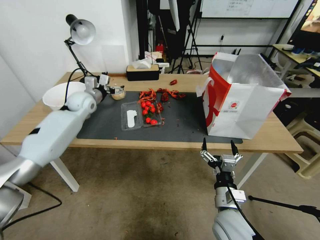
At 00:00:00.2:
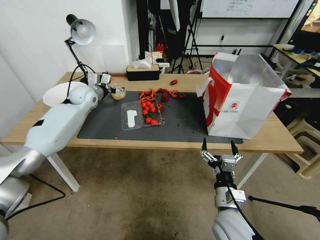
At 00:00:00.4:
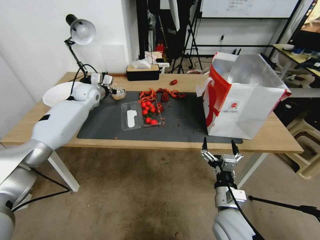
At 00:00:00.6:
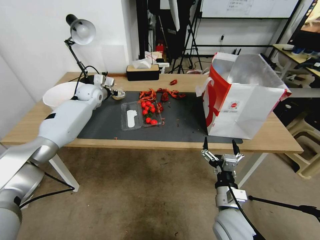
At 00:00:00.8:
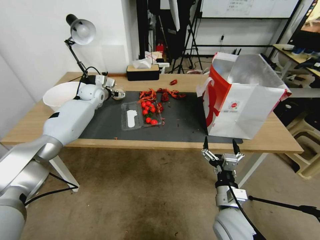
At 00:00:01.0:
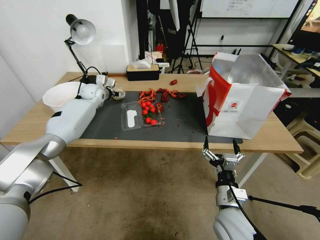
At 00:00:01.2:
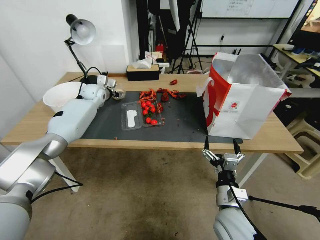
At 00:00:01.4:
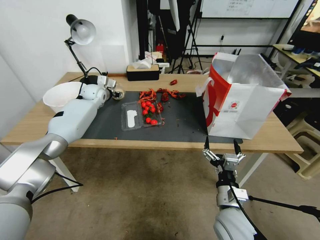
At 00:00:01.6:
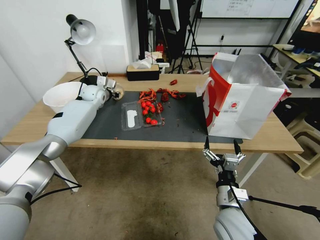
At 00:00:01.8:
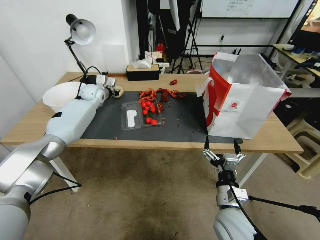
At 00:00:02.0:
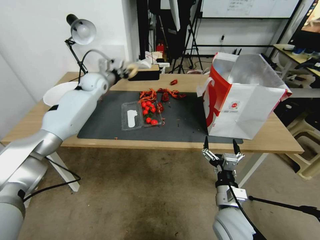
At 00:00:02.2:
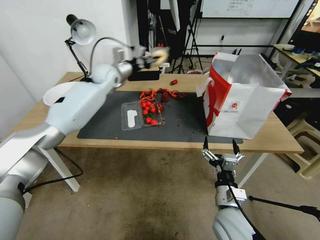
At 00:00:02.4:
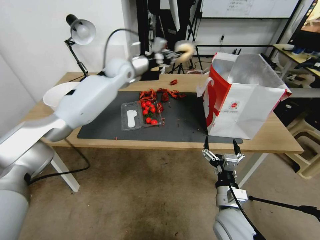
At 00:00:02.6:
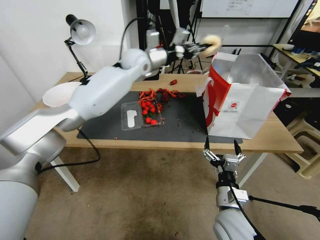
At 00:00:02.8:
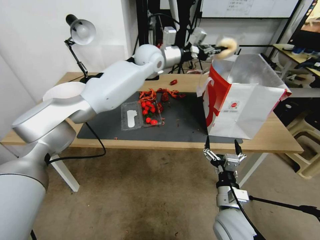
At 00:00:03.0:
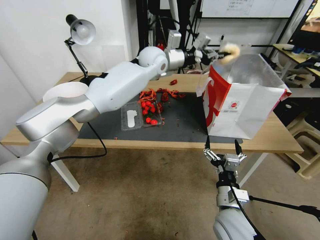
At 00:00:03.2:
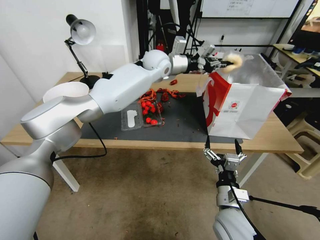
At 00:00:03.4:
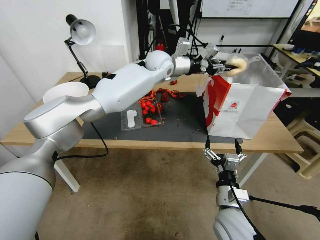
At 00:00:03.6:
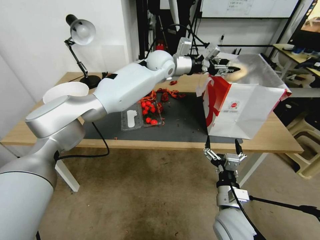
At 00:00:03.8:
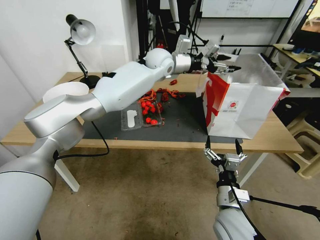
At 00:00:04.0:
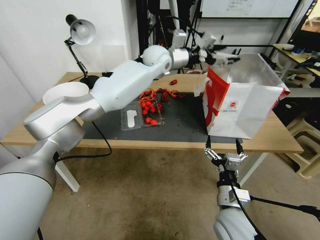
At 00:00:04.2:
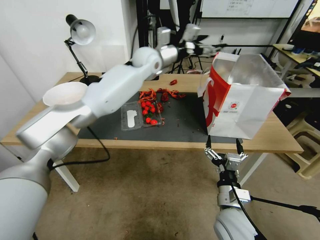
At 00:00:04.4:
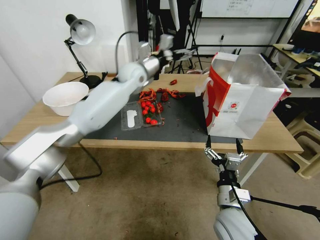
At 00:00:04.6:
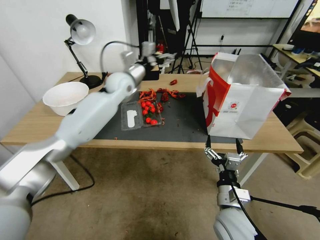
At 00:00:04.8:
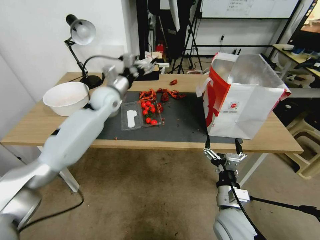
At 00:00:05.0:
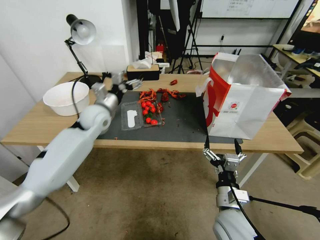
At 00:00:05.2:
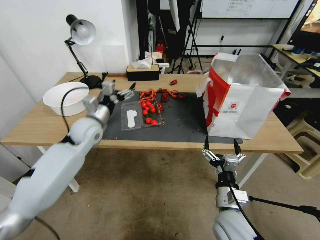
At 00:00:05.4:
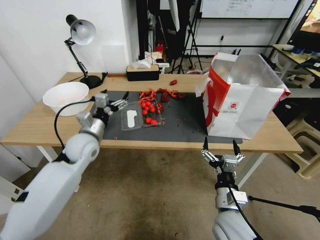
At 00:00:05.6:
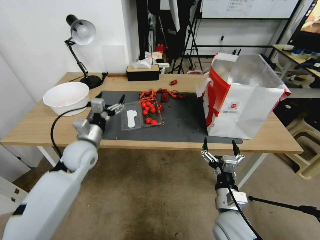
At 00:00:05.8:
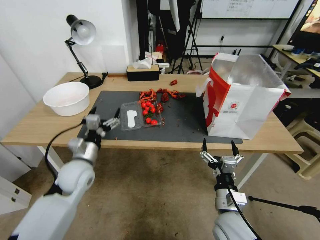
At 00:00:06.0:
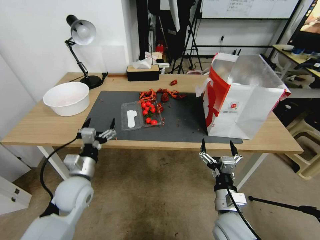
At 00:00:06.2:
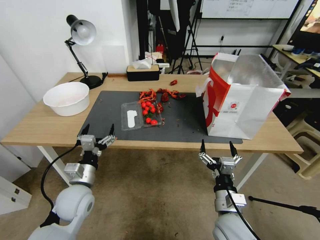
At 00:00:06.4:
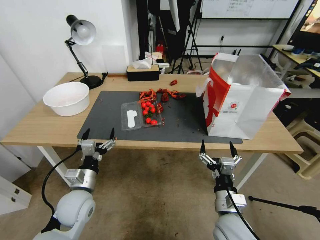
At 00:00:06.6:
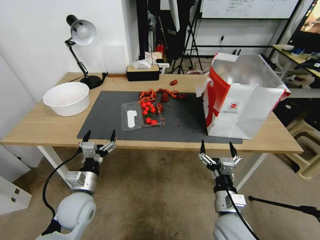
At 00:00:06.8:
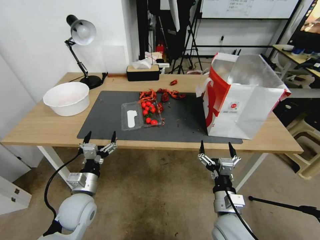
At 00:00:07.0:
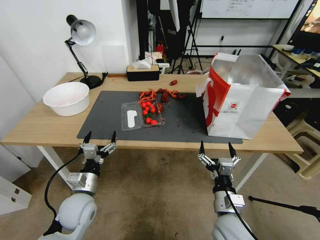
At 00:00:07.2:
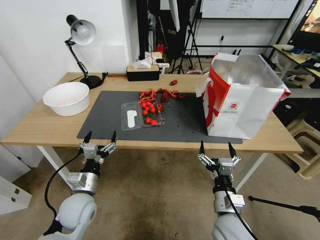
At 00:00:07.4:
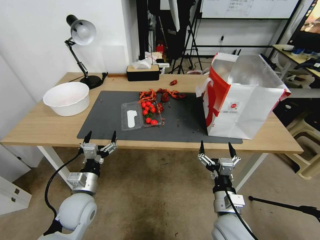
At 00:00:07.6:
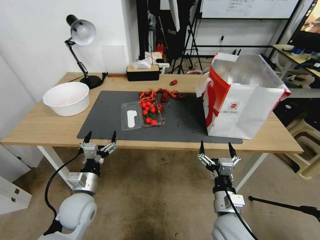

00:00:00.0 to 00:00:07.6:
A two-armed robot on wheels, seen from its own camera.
00:00:00.0 to 00:00:01.6: The left gripper goes about 10 cm forward, and closes.
00:00:01.6 to 00:00:03.0: The left gripper is displaced to the right and upward by some 30 cm.
00:00:03.0 to 00:00:04.6: The left gripper travels to the left by roughly 5 cm, and opens its fingers.
00:00:04.6 to 00:00:06.0: The left gripper shifts about 40 cm backward, downward and to the left.
00:00:06.0 to 00:00:07.6: The left gripper is displaced backward and downward by roughly 10 cm.
